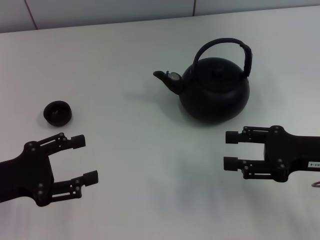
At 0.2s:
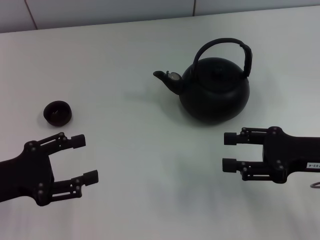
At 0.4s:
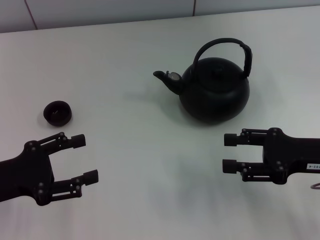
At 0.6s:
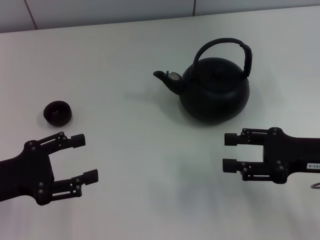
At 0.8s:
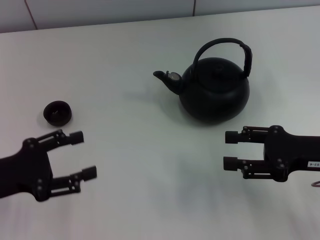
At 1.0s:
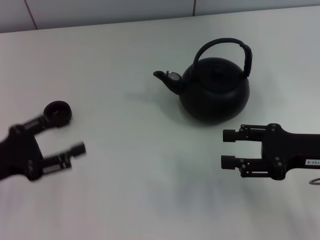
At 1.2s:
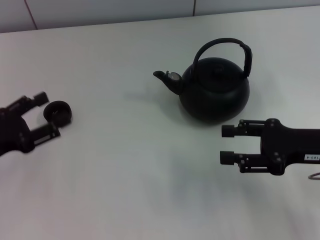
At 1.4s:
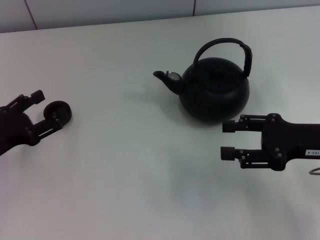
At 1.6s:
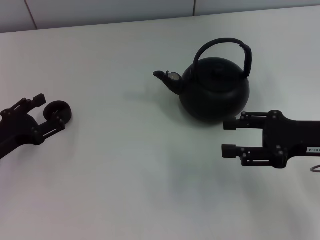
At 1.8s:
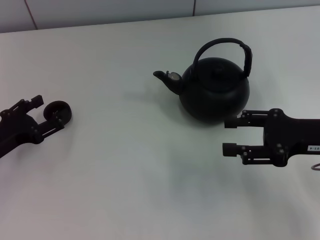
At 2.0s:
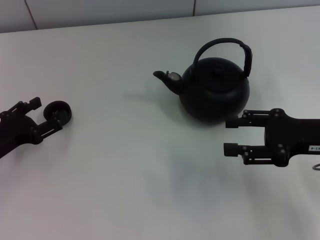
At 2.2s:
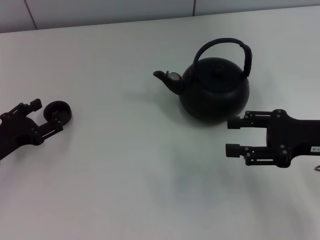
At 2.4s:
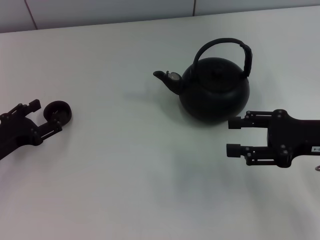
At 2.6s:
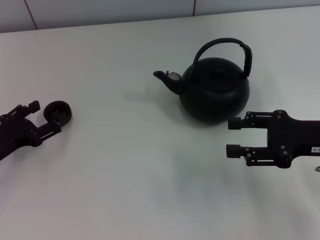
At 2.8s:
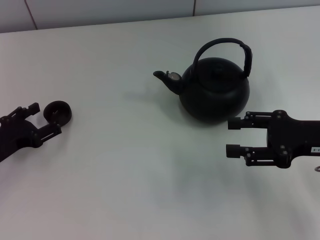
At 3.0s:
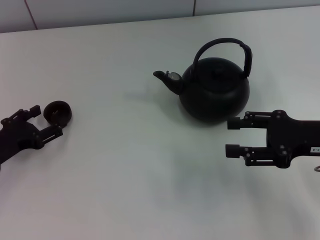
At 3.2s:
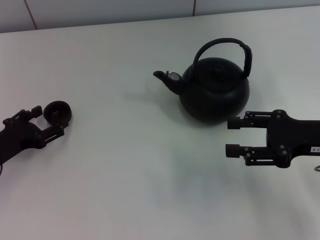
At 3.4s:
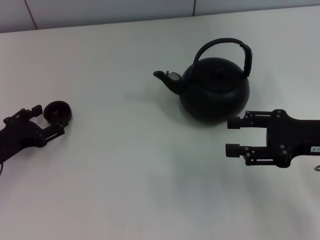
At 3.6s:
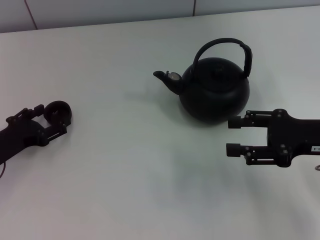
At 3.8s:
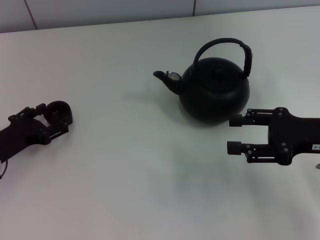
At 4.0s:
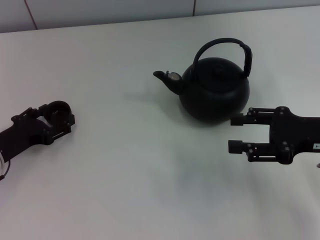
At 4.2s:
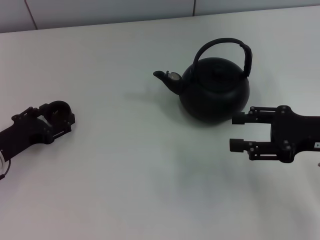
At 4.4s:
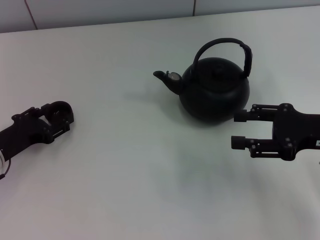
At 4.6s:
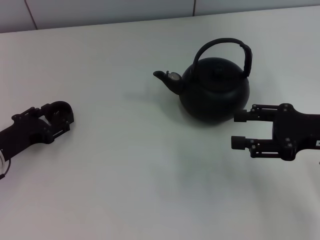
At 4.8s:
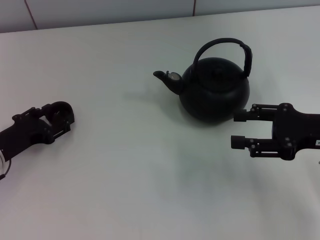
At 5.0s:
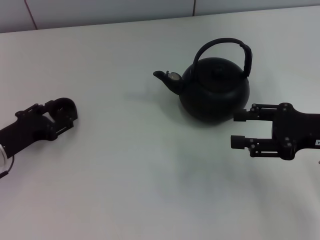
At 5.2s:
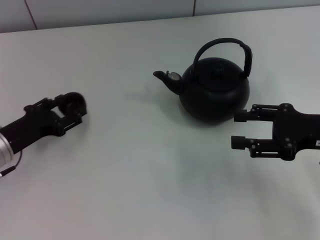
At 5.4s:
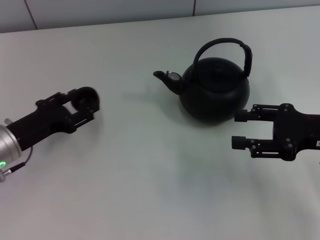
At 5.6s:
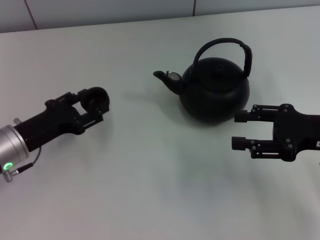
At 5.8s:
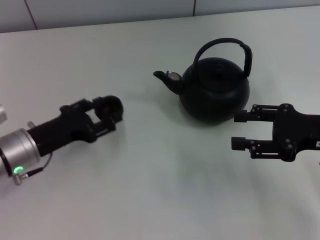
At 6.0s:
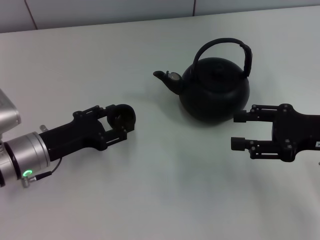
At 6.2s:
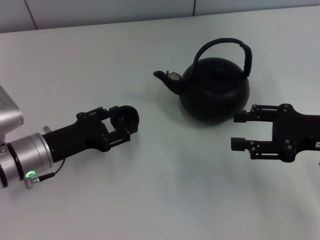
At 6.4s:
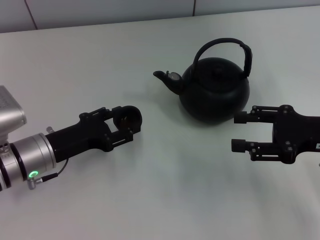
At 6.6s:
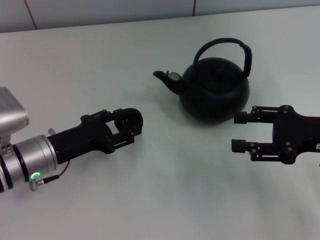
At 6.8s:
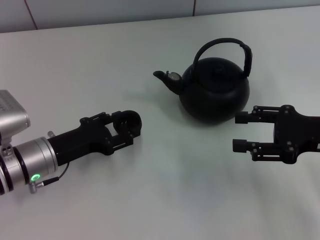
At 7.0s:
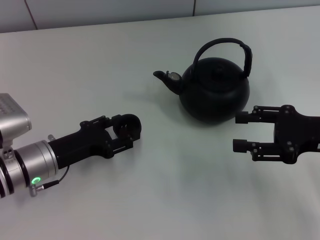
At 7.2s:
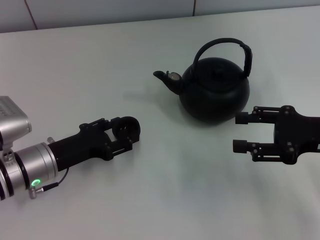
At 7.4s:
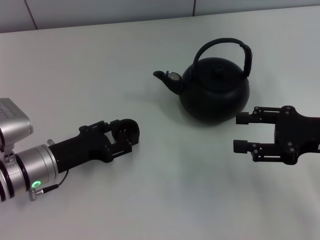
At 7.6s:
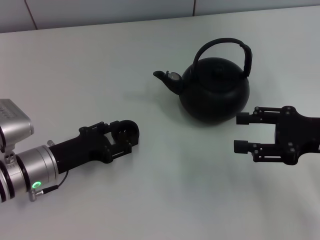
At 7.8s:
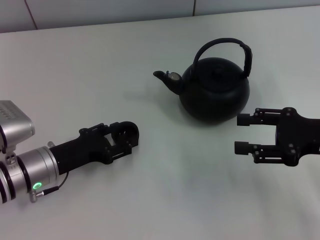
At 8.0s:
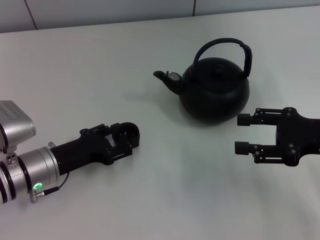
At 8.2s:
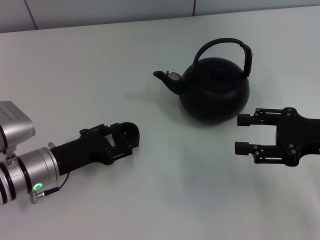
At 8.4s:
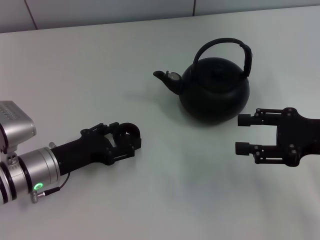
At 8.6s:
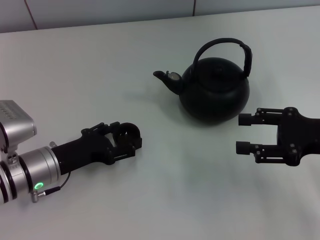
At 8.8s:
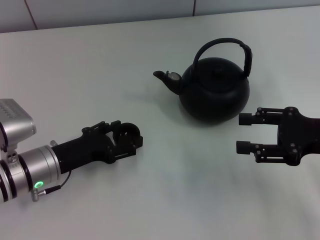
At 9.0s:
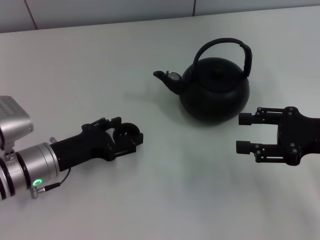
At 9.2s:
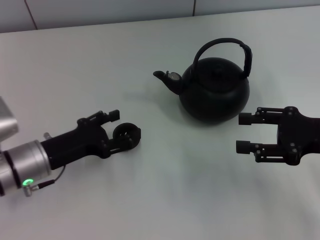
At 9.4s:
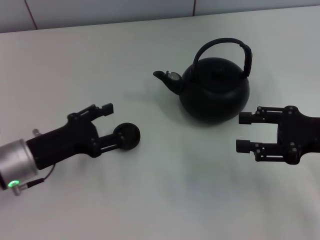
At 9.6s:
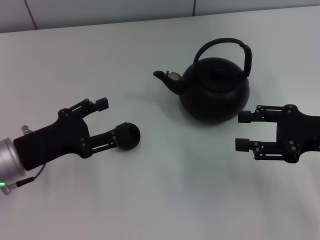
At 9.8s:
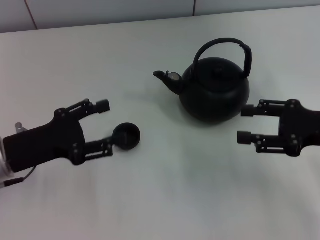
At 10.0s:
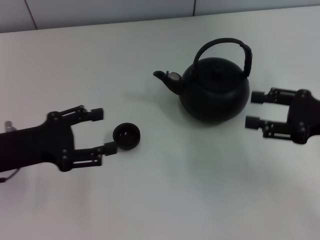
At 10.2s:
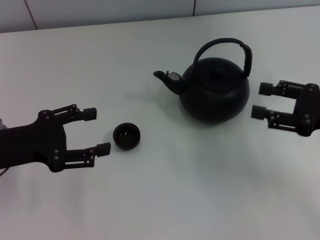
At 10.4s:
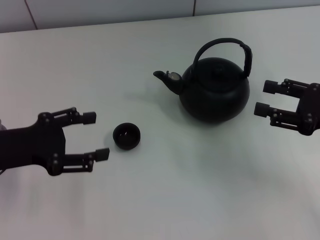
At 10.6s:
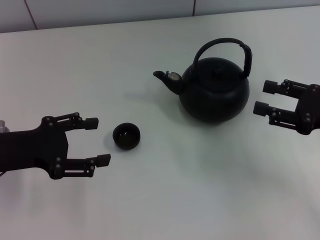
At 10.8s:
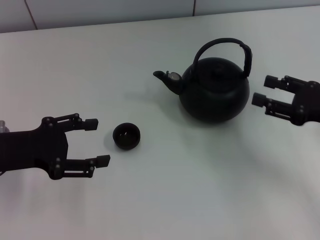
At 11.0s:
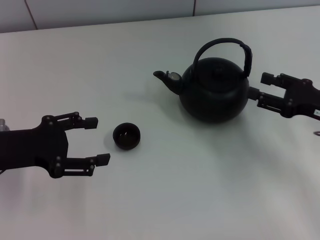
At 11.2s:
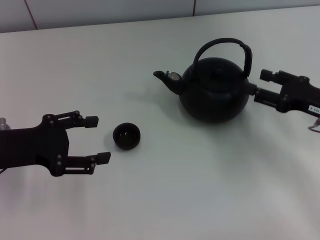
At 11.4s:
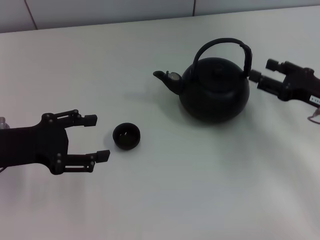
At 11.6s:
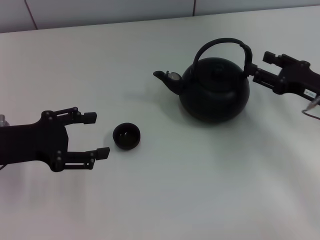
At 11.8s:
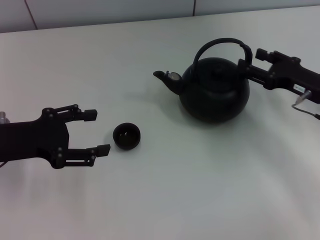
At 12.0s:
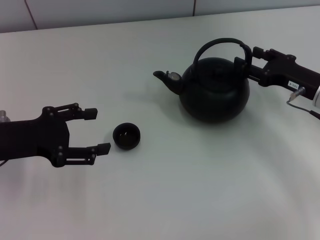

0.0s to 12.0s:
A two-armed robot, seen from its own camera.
Task of the whole recording: Grasp the handle of the teapot with one hand and pour tea into the teacup.
Step, 0.0s to 5.4s: Pick up the teacup with the left gripper.
Step, 5.6s to 10.0s: Place the teacup in the center of view with the left gripper.
0.0s to 1.6s: The left gripper changes place by about 5 cm.
1.6s to 3.0s: There are only small adjustments of the grippers.
3.0s to 4.4s: The left gripper closes up.
4.4s to 6.0s: The left gripper goes approximately 5 cm to the right.
6.0s to 7.6s: The left gripper opens up.
7.6s to 9.0s: The left gripper opens.
9.0s to 10.4s: The left gripper moves upward and to the left, about 10 cm.
10.4s to 12.0s: The right gripper heads forward, covering approximately 10 cm.

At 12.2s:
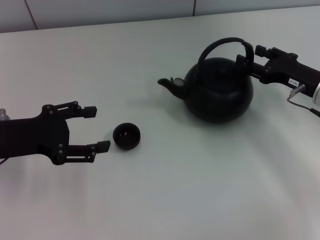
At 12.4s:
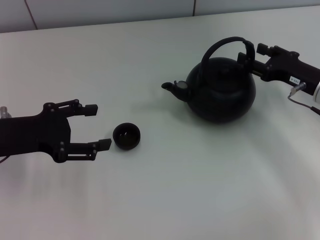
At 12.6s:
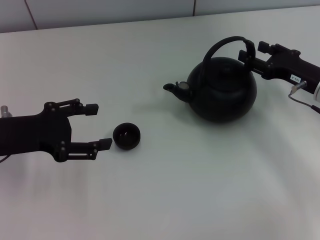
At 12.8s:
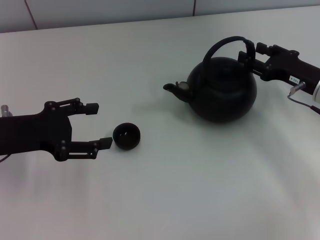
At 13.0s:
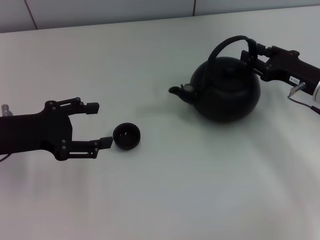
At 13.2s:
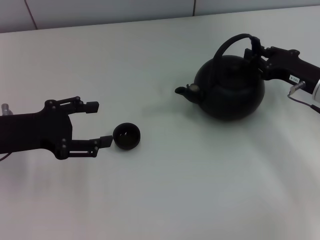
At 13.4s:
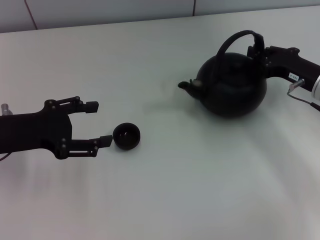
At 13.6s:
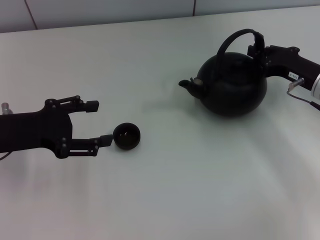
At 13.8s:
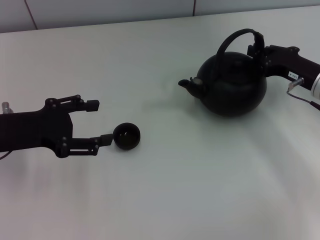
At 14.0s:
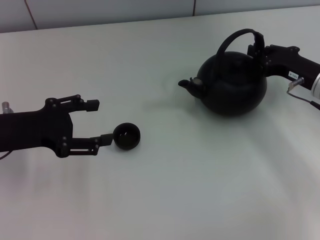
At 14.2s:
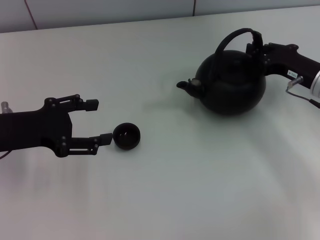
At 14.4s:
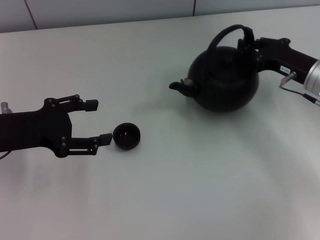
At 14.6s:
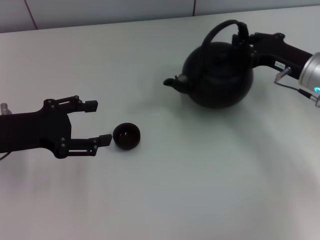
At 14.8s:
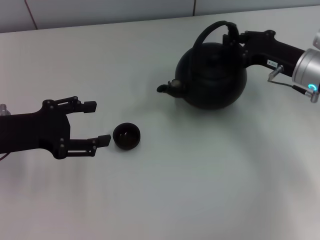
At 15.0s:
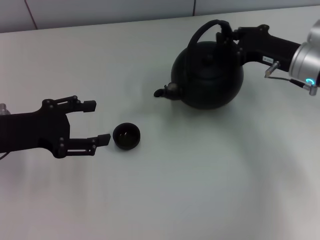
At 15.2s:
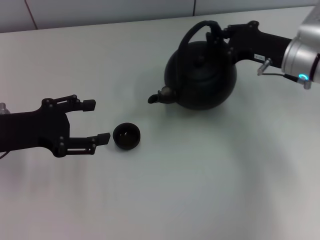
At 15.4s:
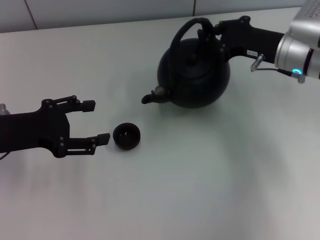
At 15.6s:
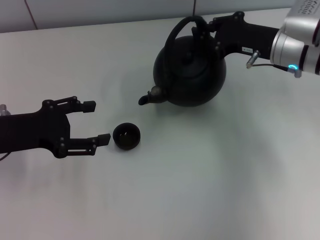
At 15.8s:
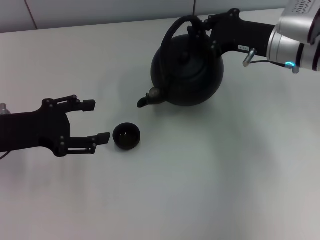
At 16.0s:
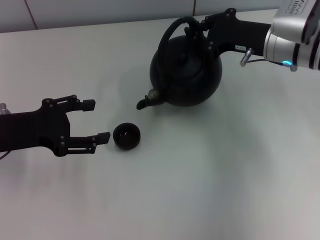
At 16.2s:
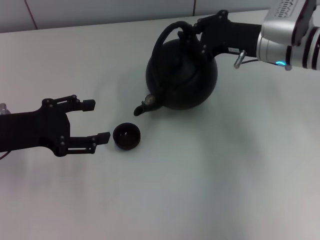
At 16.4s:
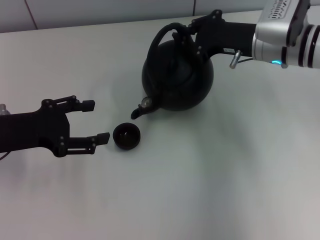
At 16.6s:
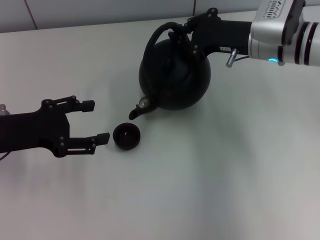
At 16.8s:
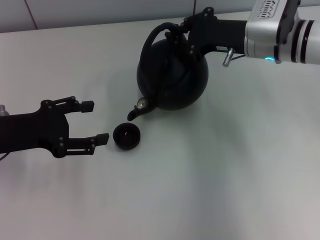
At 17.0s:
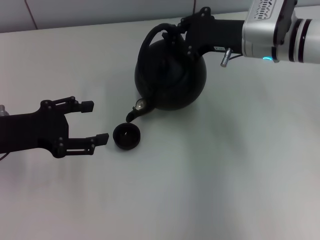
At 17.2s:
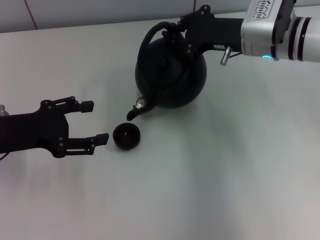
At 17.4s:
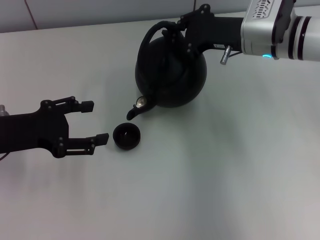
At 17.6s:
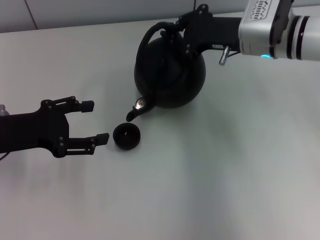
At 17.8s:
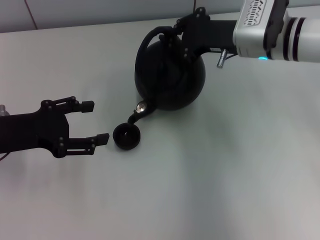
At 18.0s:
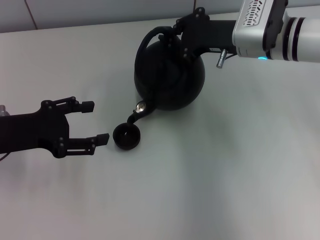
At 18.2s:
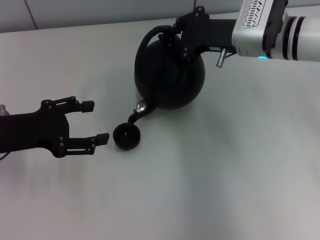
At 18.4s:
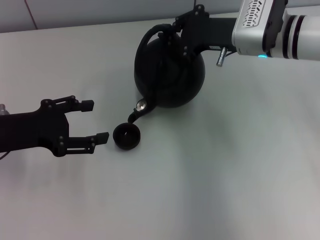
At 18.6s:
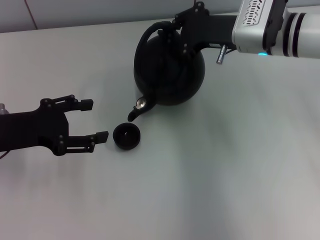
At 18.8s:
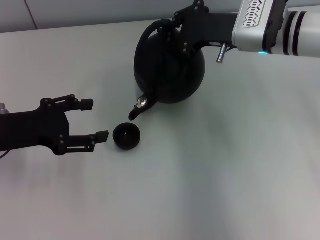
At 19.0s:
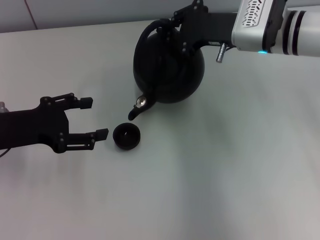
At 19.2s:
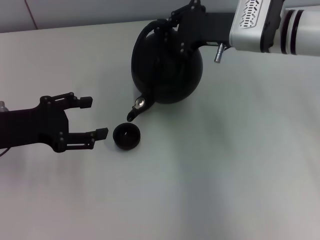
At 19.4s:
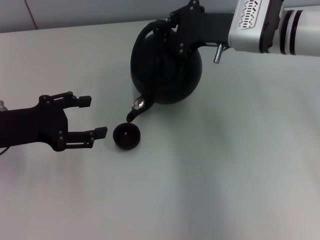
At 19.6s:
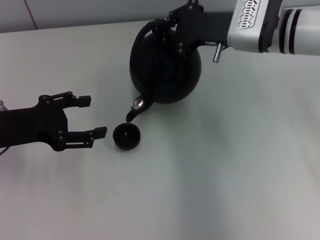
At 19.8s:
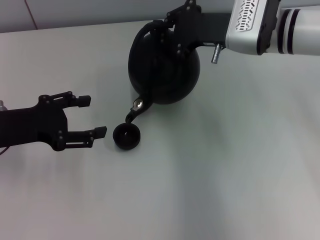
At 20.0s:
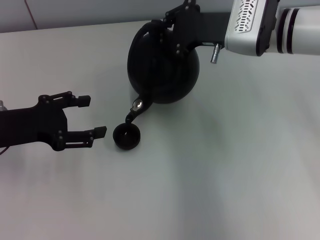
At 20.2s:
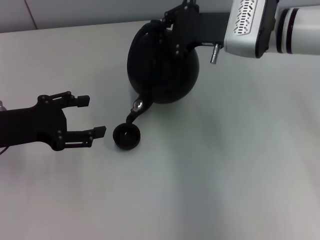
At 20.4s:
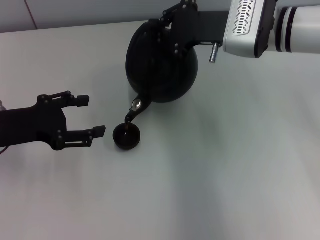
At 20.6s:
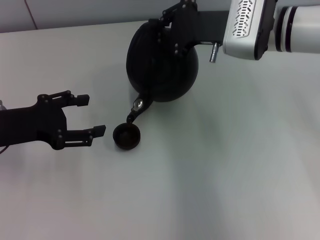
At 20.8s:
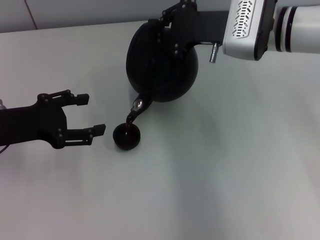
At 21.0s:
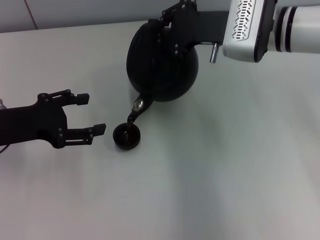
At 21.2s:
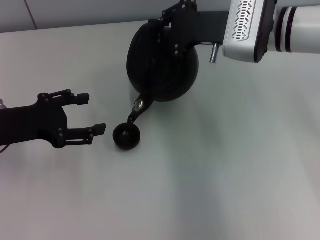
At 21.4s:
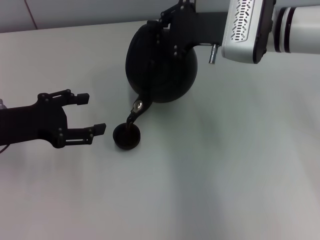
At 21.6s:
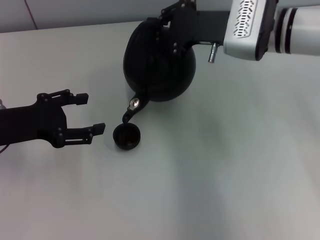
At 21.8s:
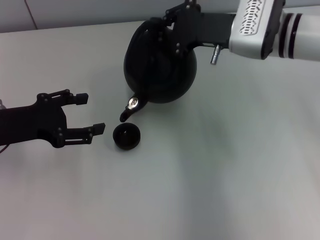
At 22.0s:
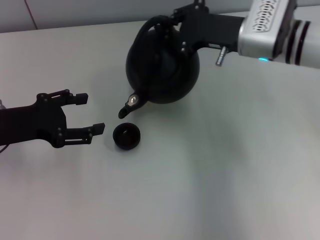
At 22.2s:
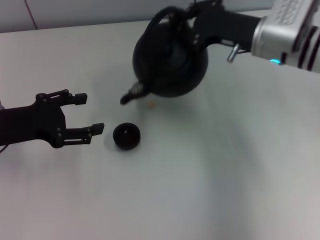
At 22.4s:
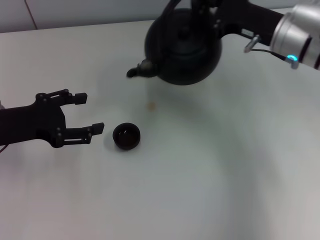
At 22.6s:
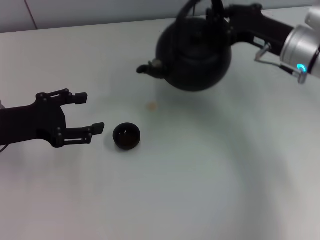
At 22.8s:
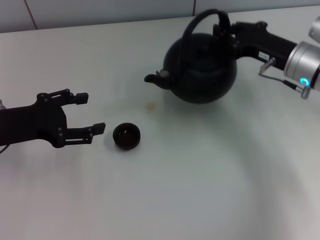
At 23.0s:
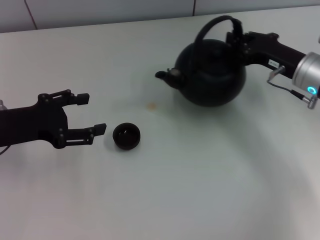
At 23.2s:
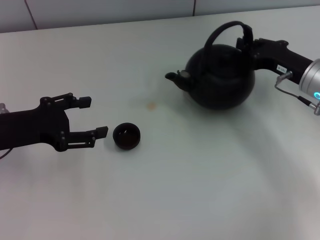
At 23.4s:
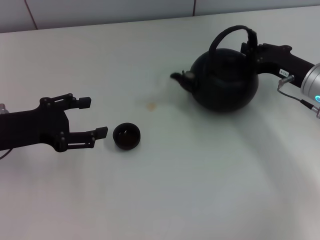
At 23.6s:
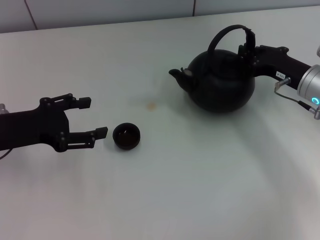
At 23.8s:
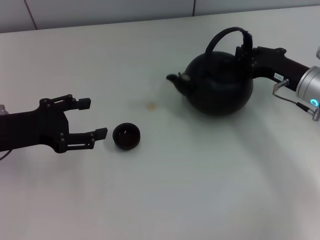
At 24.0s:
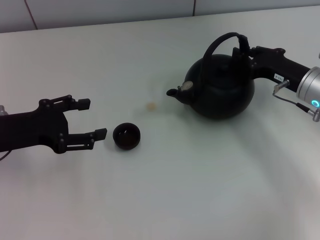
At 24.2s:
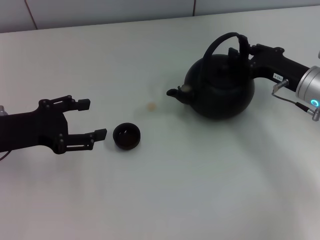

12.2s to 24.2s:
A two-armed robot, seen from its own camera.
Task of the whole recording: Grasp the handle of the teapot with one hand and pour tea into the teacup.
Step, 12.2s to 14.4s: Pick up the teapot with the right gripper.
12.2s to 13.8s: The right gripper closes its fingers.
13.8s to 15.2s: The right gripper changes place by roughly 5 cm.
15.2s to 16.6s: The right gripper is displaced to the left by about 5 cm.
16.6s to 19.8s: There are only small adjustments of the grippers.
19.8s to 21.2s: The grippers move only a little.
21.2s to 22.6s: The right gripper is displaced to the right by roughly 10 cm.
22.6s to 24.2s: The right gripper goes about 5 cm downward.
